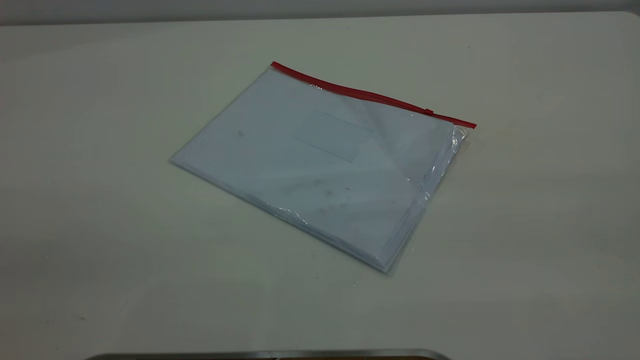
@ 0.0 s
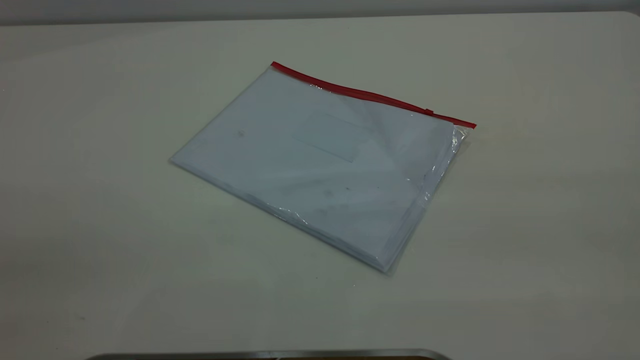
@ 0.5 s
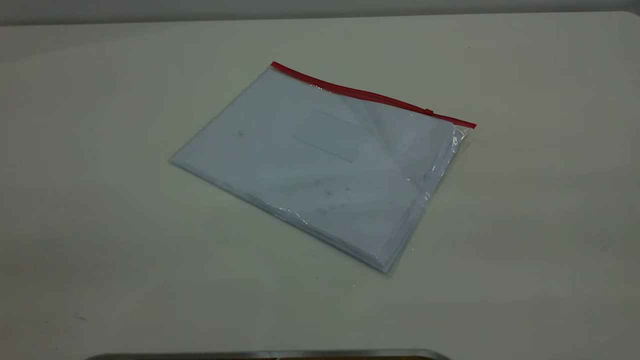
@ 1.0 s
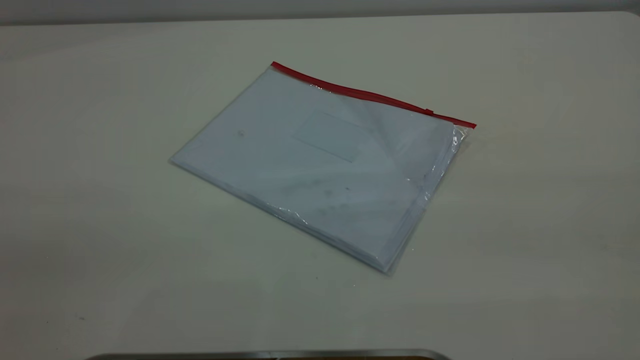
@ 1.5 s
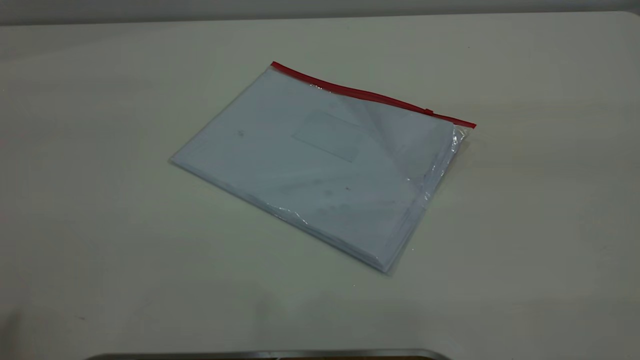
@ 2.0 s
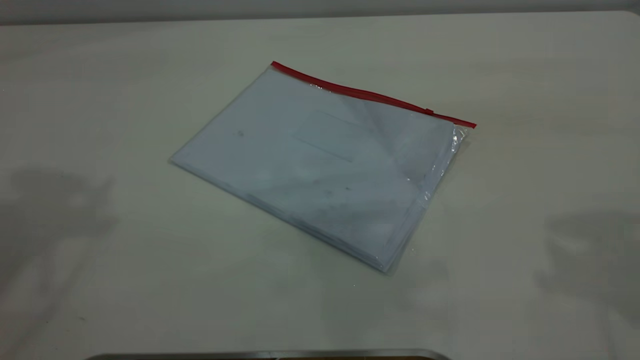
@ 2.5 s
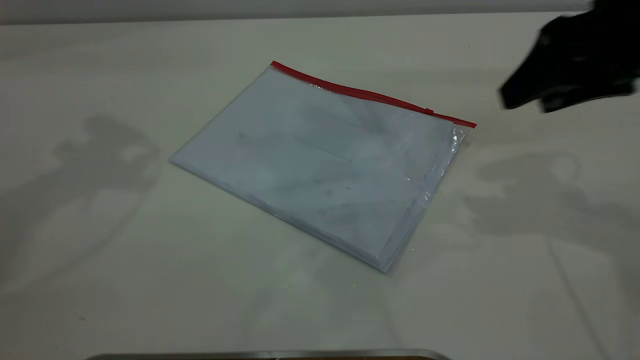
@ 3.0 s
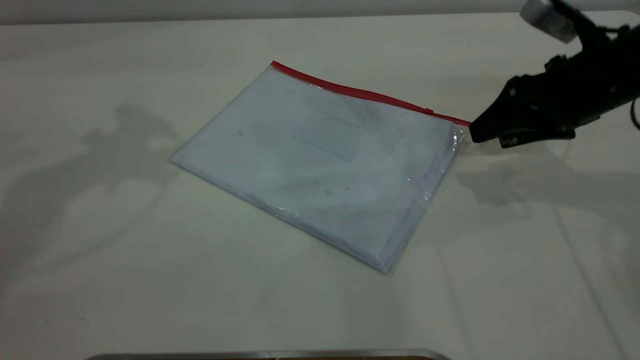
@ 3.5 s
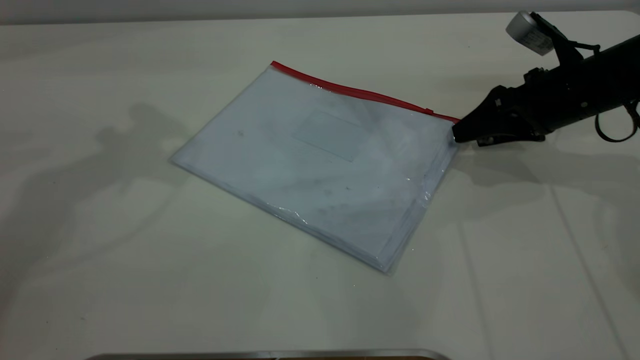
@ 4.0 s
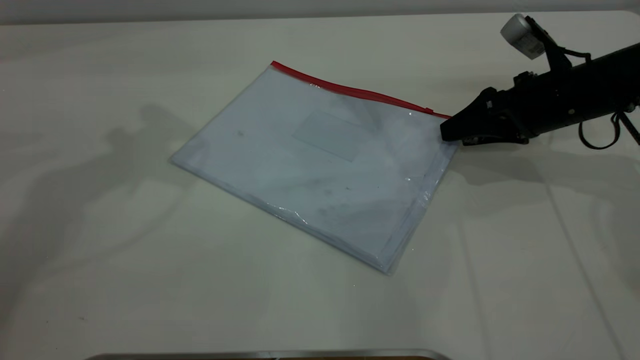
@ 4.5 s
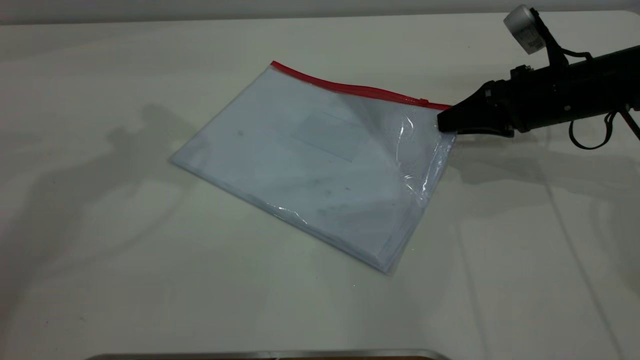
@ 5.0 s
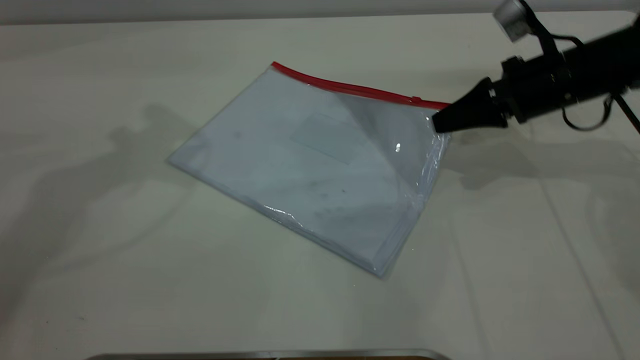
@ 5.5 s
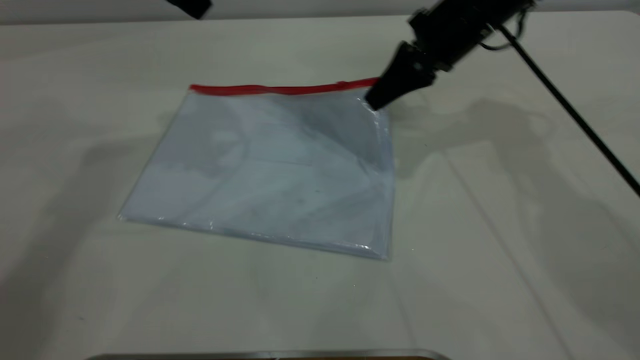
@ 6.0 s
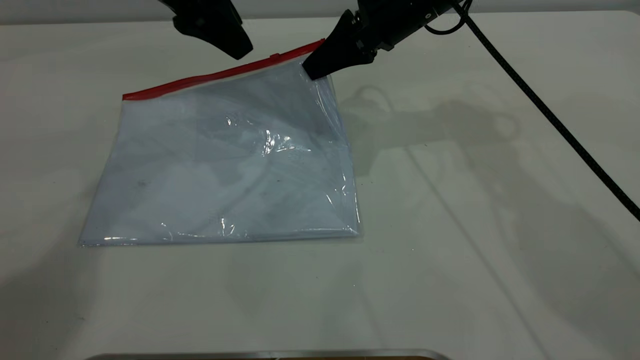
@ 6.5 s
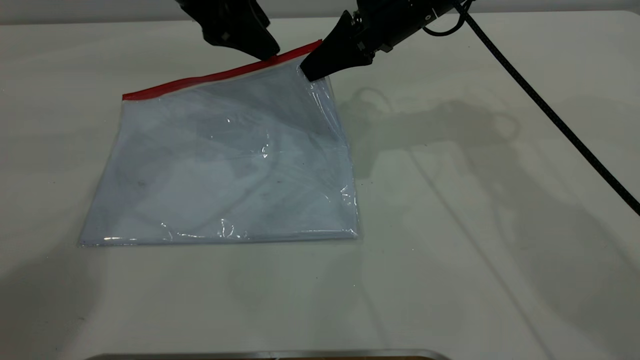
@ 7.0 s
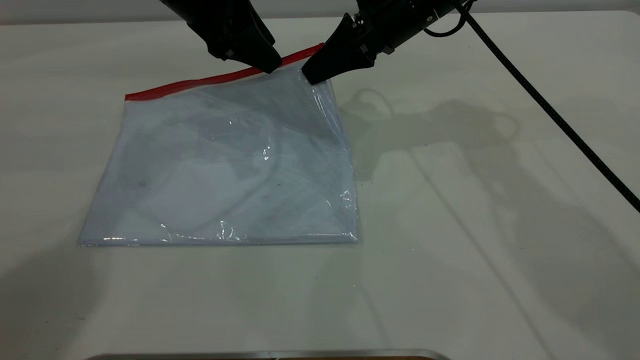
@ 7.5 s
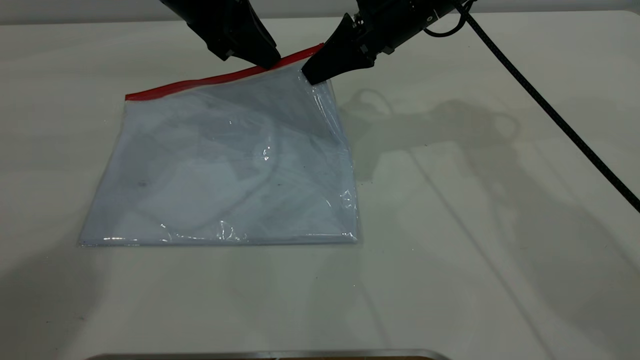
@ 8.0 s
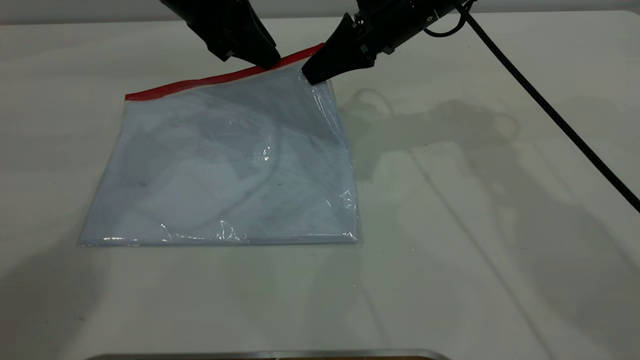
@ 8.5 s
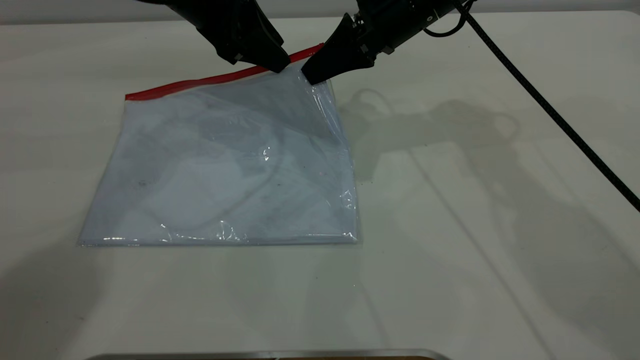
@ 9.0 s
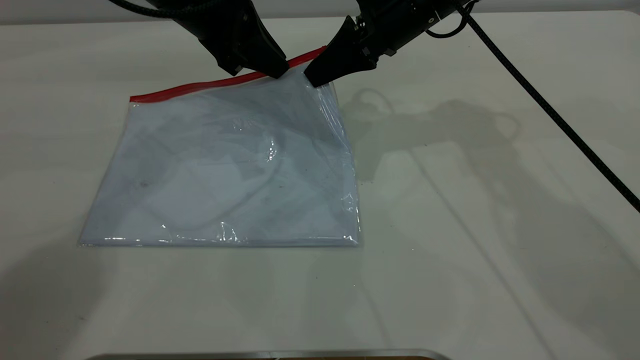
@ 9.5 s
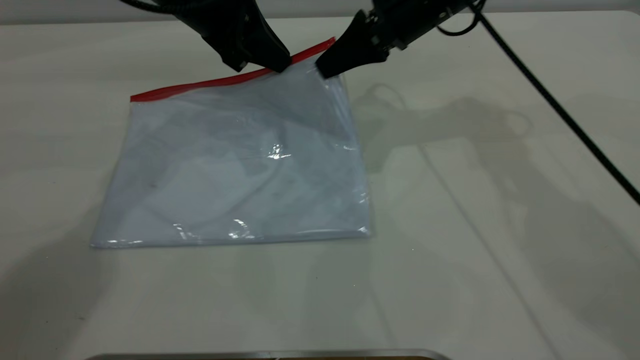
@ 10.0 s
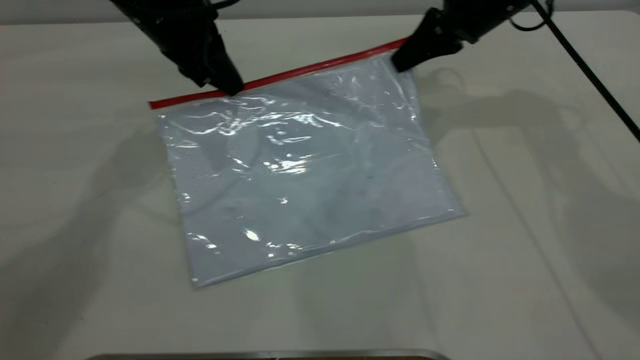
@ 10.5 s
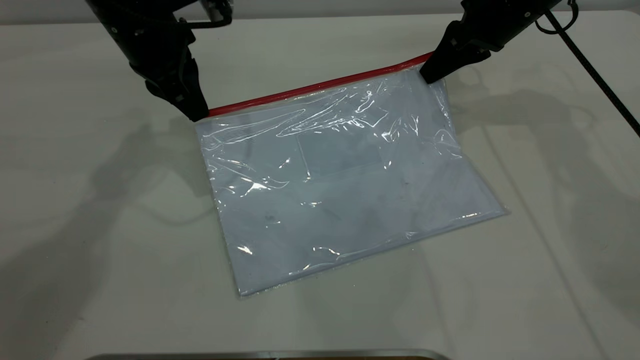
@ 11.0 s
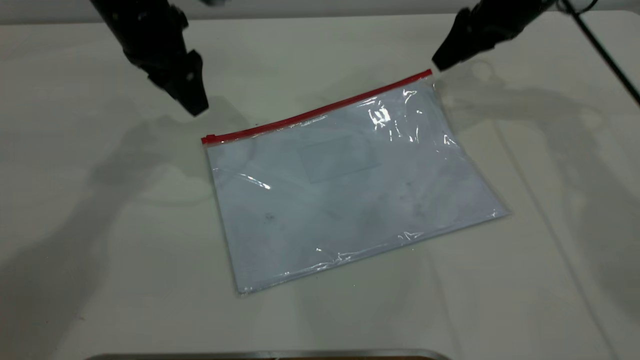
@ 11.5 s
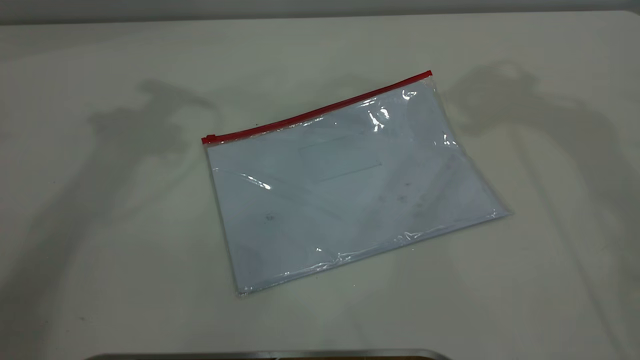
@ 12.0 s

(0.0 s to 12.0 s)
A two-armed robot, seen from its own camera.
Step, 0.0 s - 5.5 s: Pick up the transparent plastic bag with the right gripper.
Step, 6.5 s - 11.0 s: Pulling up the zipper on the transparent plastic bag with the left gripper to close it.
2.0 s - 4.0 s: The right gripper is displaced downward and forward by about 50 cm.
4.0 s - 6.0 s: The right gripper heads to the left, upward and forward, covering some 15 cm, and closes its fingers. Meanwhile the left gripper is displaced downward and to the right by some 10 cm.
6.0 s - 8.0 s: The left gripper goes some 5 cm downward, and closes its fingers.
8.0 s - 10.0 s: The grippers stay close to where they were, moving slightly.
10.0 s - 12.0 s: The right gripper travels upward and to the right by roughly 30 cm, and opens. The left gripper is displaced upward by approximately 20 cm, and opens.

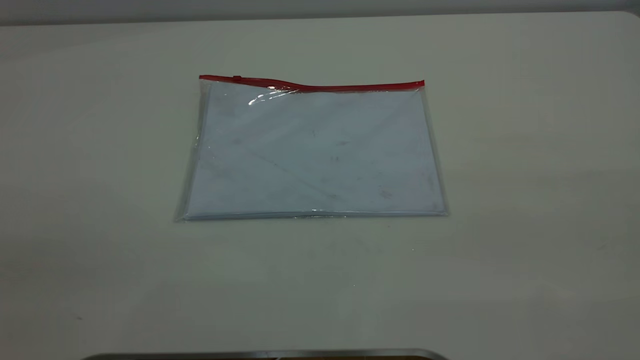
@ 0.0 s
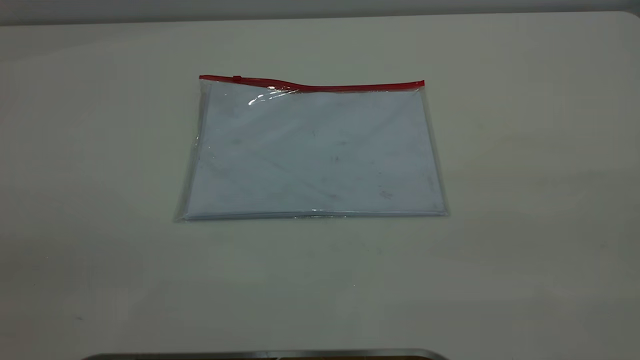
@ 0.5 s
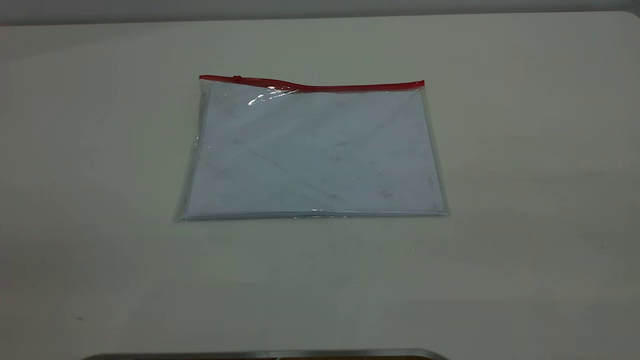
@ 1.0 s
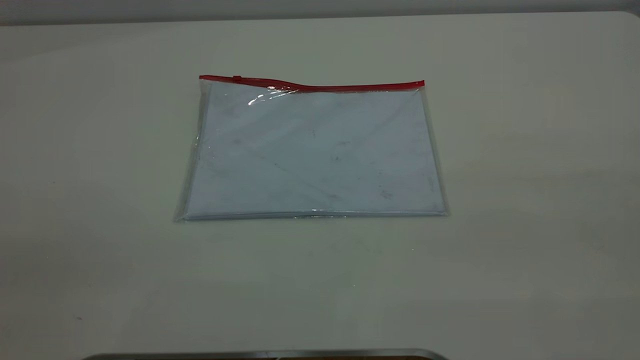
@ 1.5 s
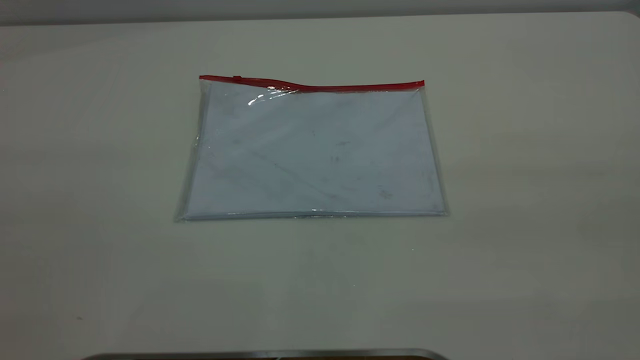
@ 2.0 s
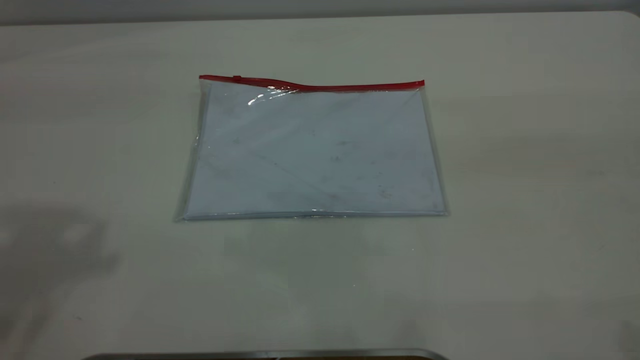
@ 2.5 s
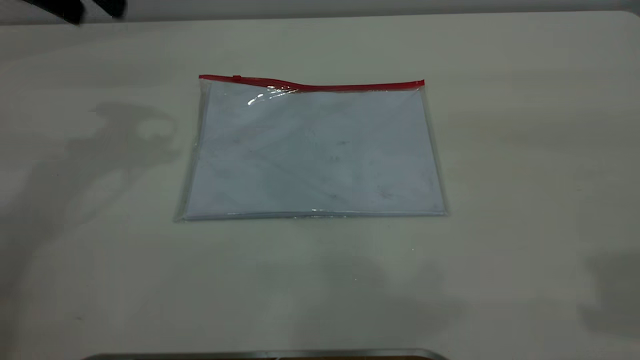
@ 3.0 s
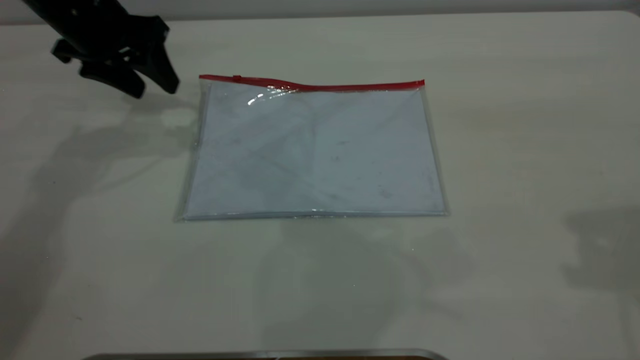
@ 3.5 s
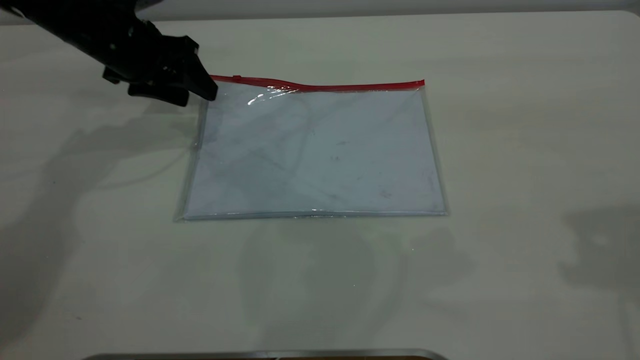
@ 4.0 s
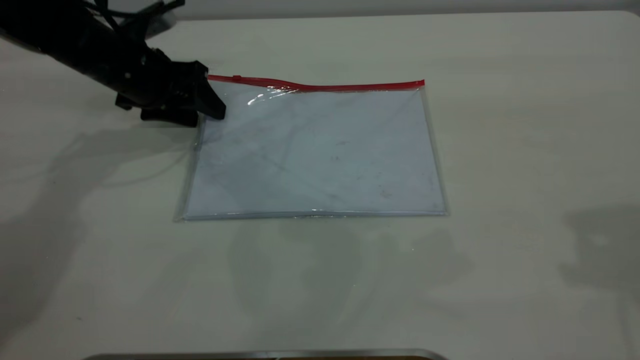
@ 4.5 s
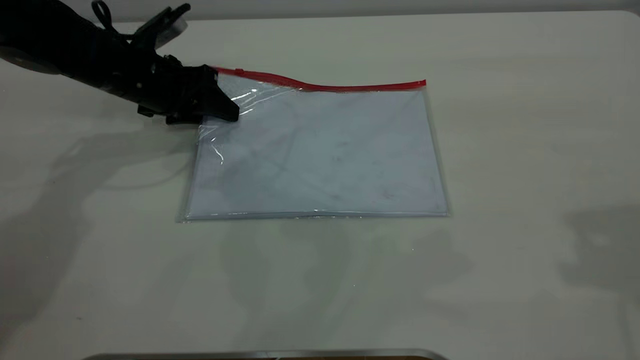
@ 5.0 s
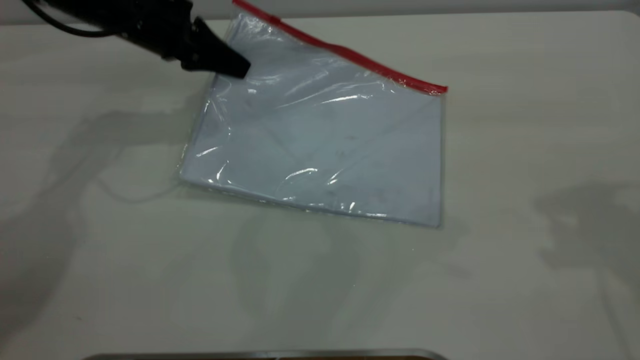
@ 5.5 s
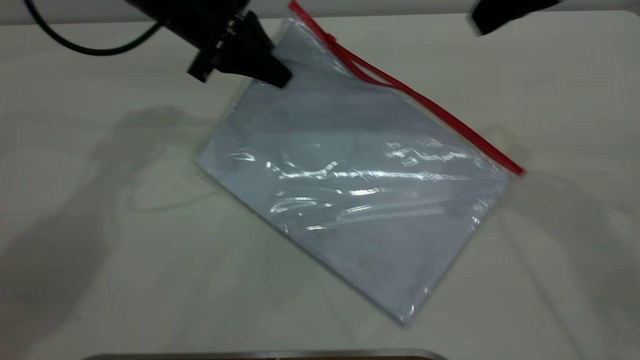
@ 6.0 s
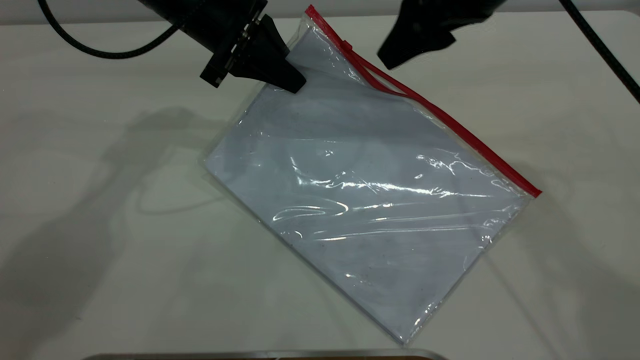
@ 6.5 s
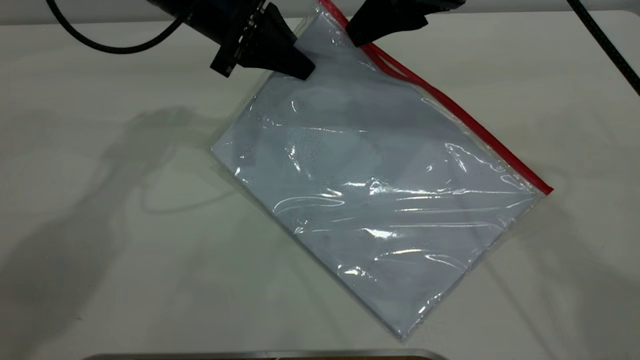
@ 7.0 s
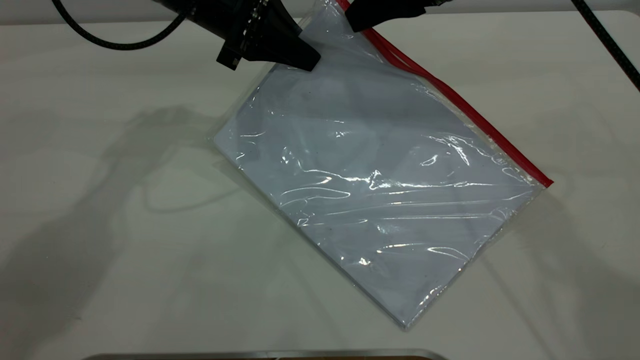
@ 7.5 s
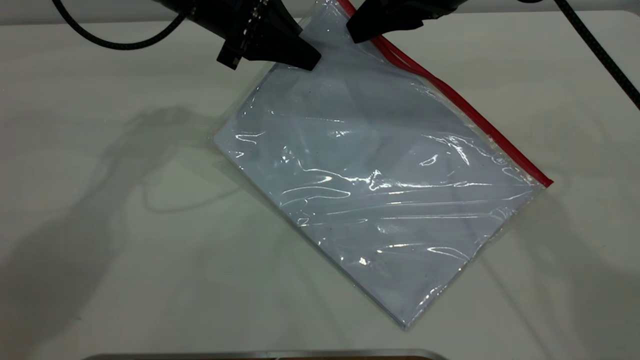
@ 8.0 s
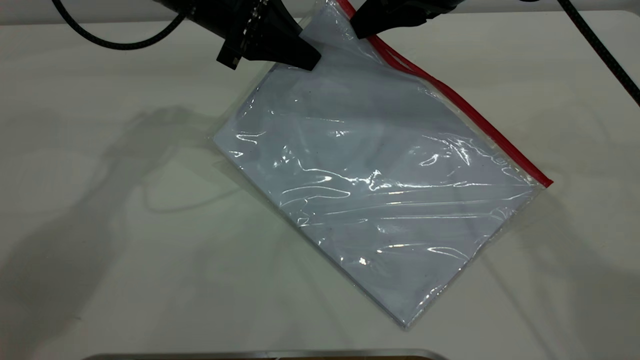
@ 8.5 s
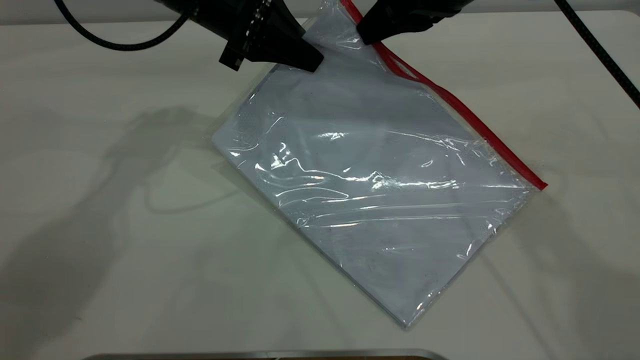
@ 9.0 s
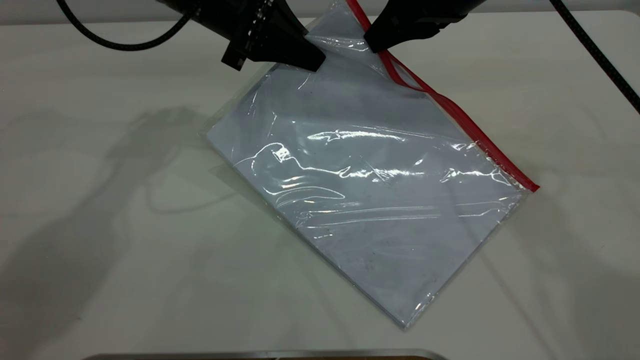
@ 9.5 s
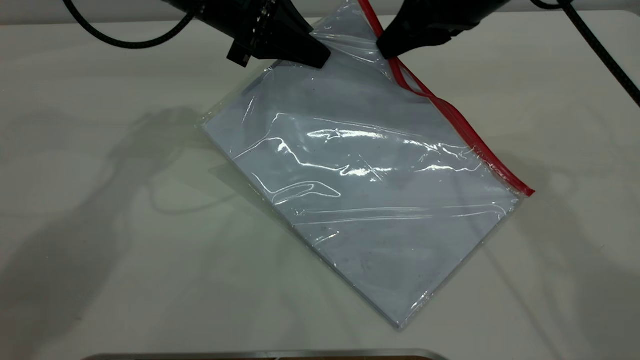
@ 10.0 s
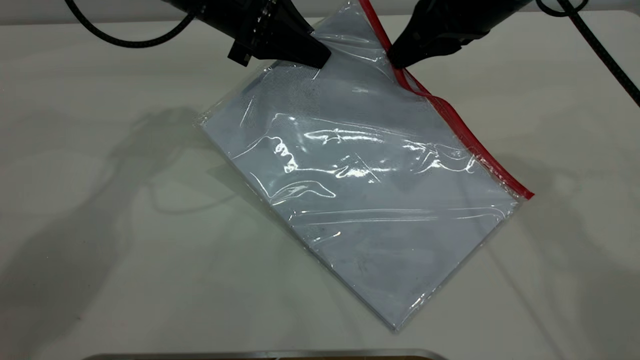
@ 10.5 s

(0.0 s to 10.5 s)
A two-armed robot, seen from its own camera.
Step, 0.0 s - 5.0 s: Pick up the transparent plastic bag with the left gripper.
2.0 s - 4.0 s: The left gripper is displaced forward and downward by approximately 50 cm.
4.0 s - 6.5 s: The left gripper shifts some 10 cm to the right, and closes, while the right gripper travels forward, to the left and downward by some 25 cm.
6.5 s - 8.5 s: The right gripper closes.
8.5 s - 10.5 s: The grippers move only a little.
